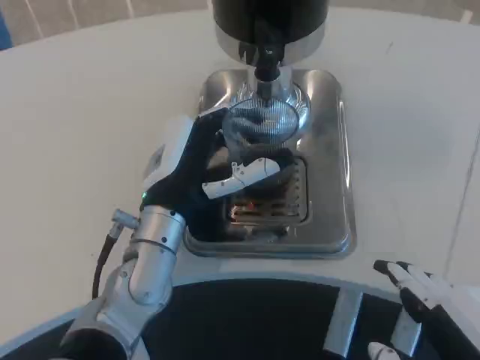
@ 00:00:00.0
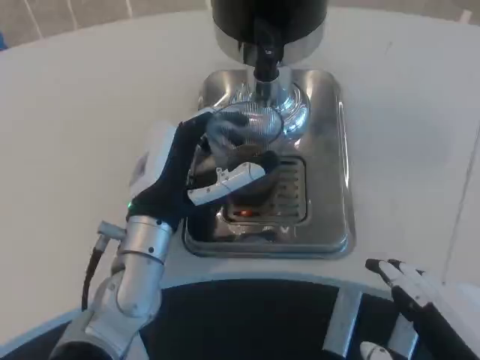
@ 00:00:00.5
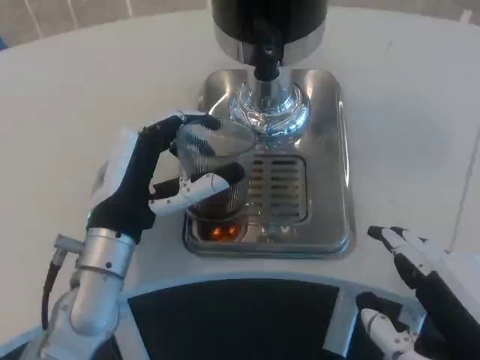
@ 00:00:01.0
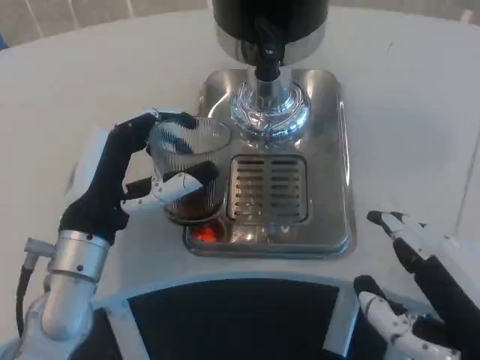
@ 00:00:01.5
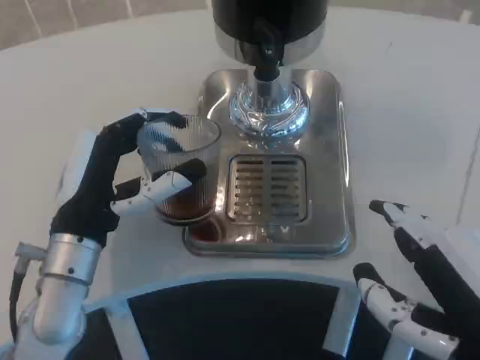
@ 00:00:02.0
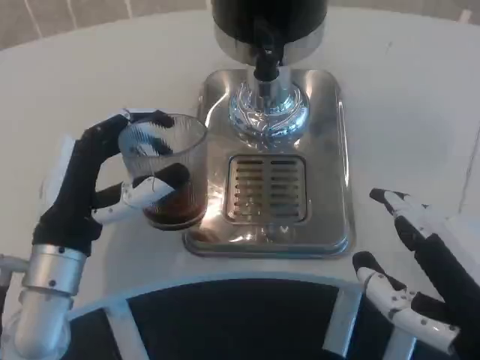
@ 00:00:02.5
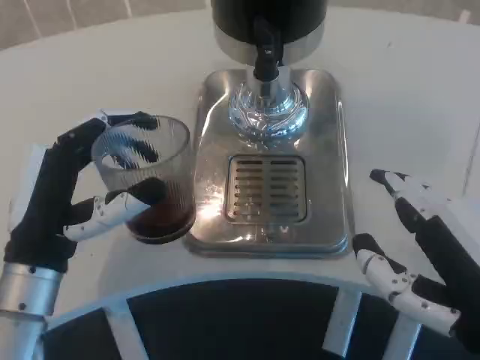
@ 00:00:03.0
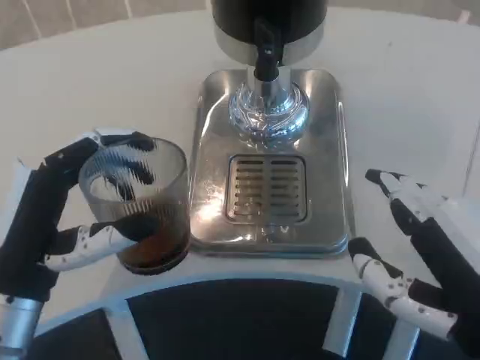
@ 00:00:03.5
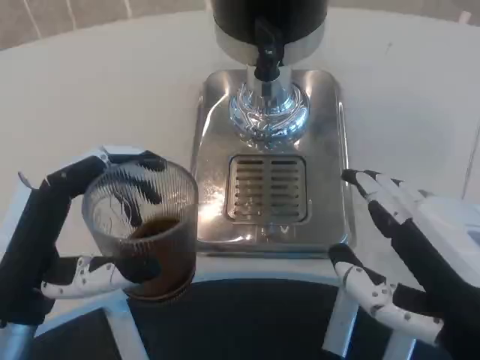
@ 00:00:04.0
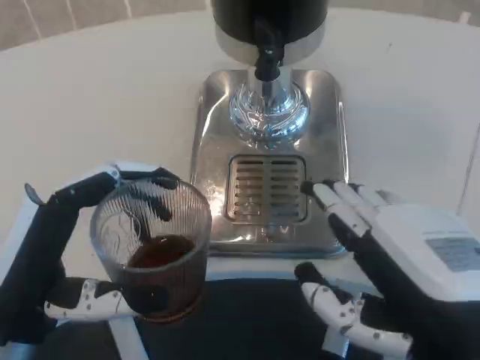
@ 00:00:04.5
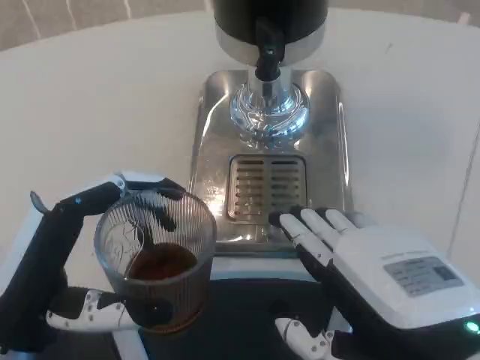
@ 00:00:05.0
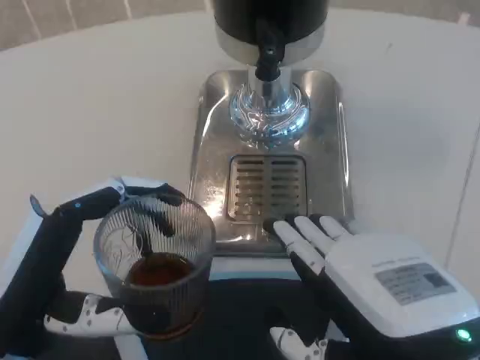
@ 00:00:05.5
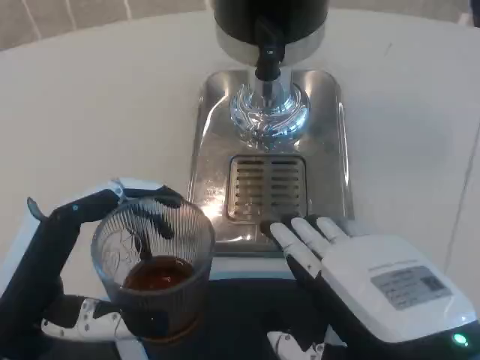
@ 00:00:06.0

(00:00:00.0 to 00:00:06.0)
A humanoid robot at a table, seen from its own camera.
Task of the whole recording: Grasp the cup under the faucet to collect the drink, then remove the cup.
00:00:00.0 - 00:00:02.0: The left hand heads to the left, covering approximately 10 cm.
00:00:02.0 - 00:00:04.0: The left hand heads backward, covering approximately 10 cm.

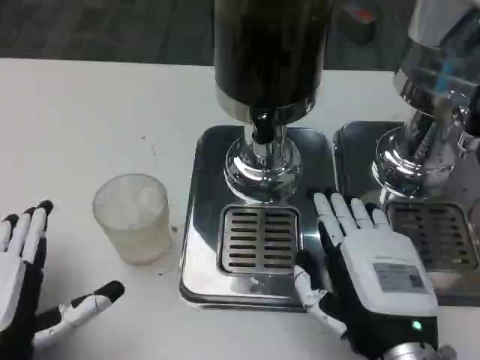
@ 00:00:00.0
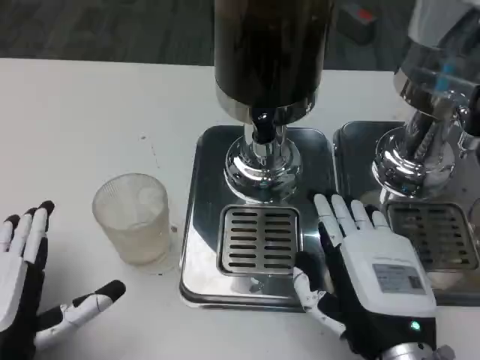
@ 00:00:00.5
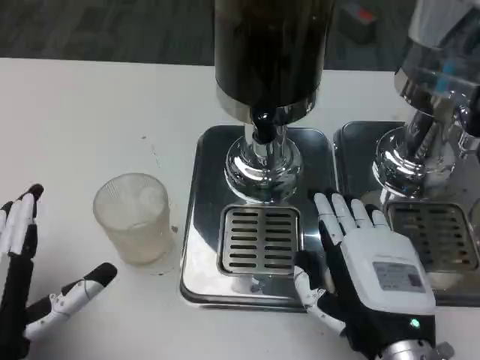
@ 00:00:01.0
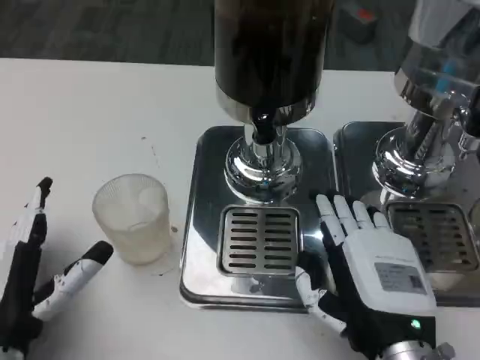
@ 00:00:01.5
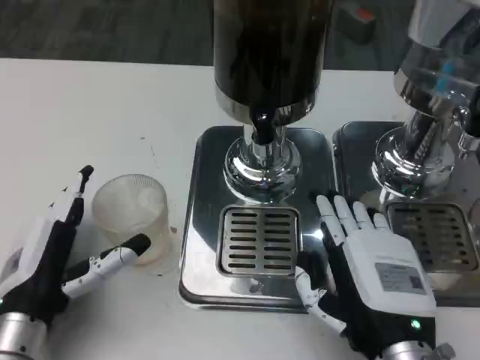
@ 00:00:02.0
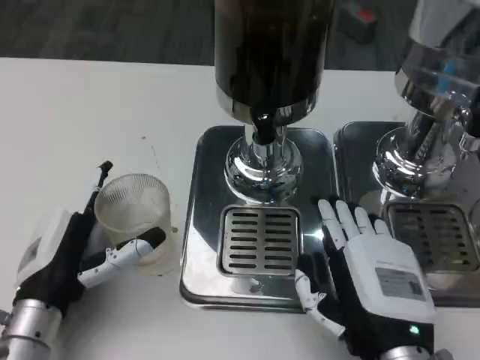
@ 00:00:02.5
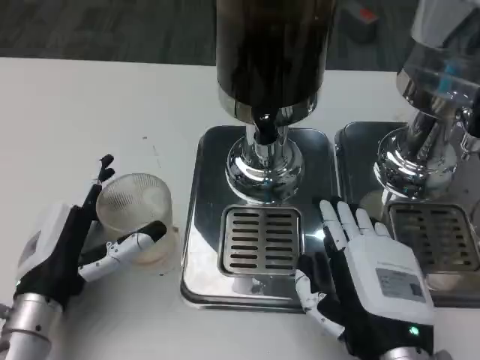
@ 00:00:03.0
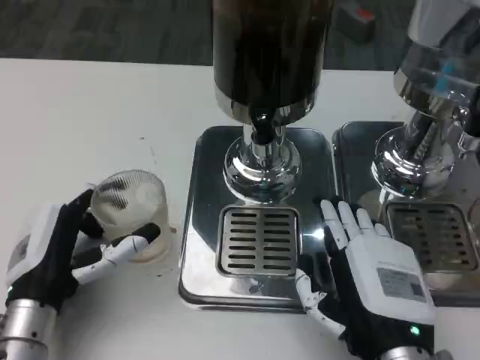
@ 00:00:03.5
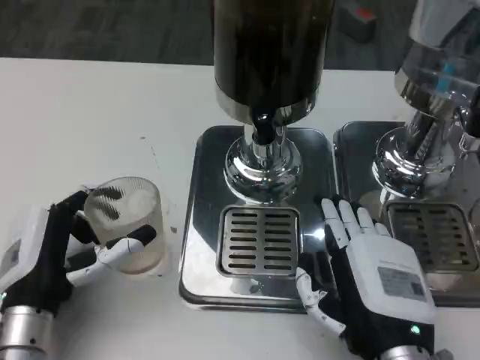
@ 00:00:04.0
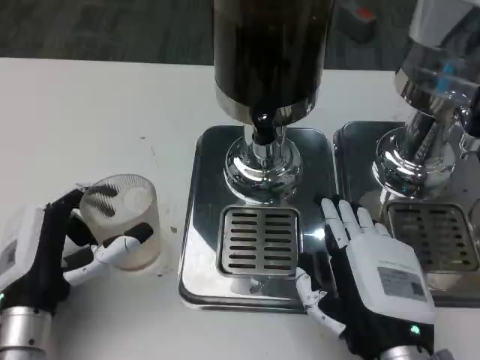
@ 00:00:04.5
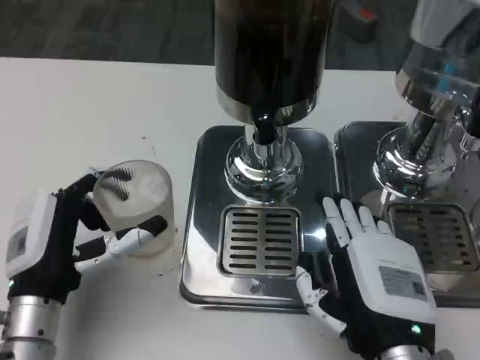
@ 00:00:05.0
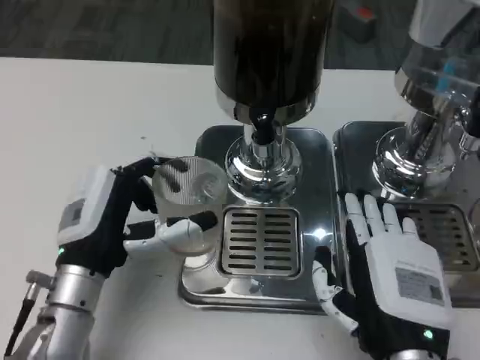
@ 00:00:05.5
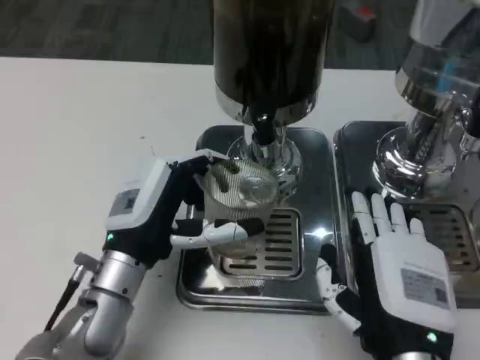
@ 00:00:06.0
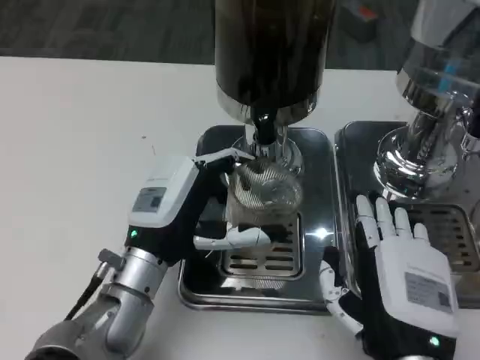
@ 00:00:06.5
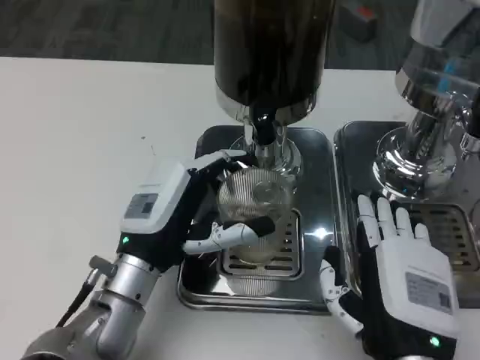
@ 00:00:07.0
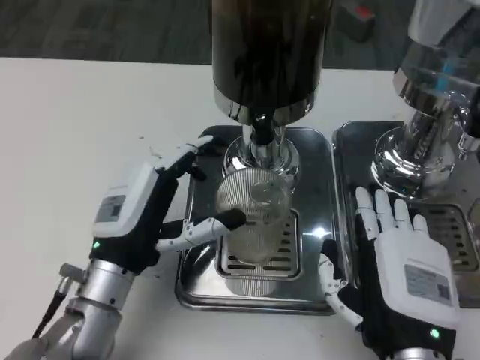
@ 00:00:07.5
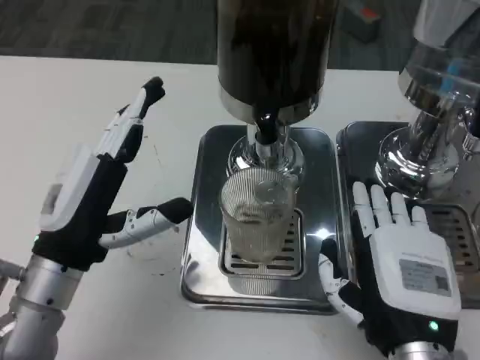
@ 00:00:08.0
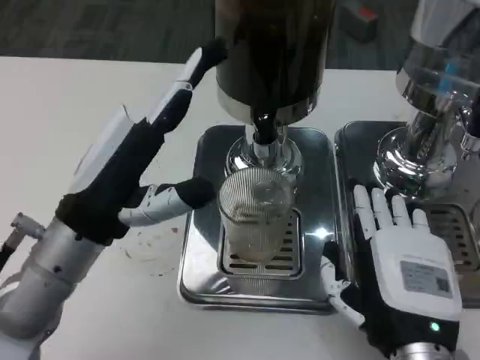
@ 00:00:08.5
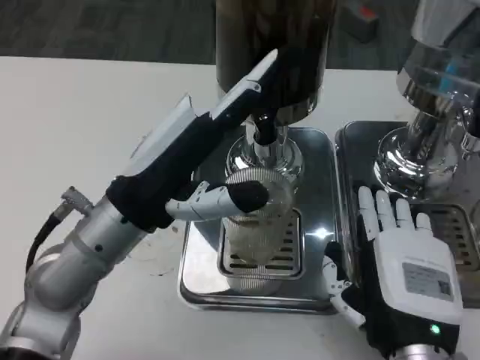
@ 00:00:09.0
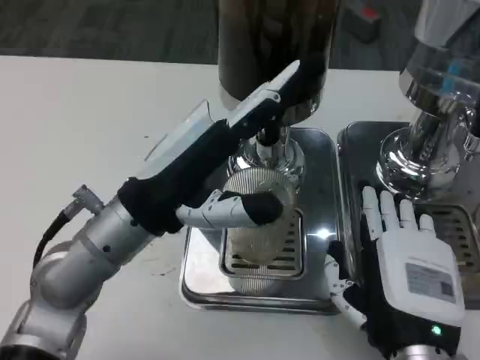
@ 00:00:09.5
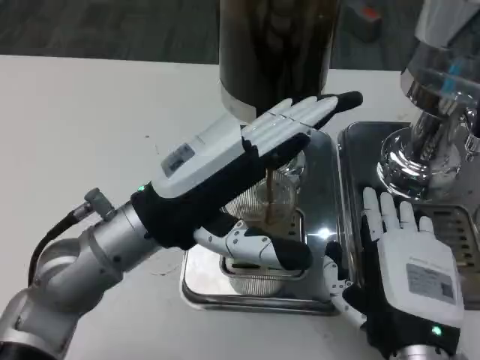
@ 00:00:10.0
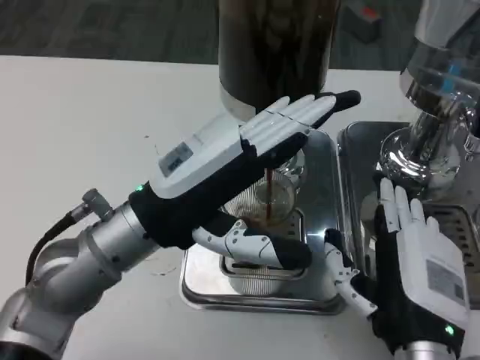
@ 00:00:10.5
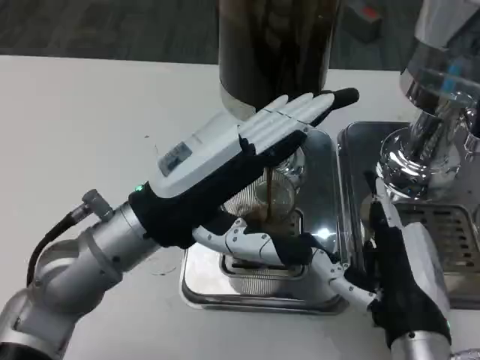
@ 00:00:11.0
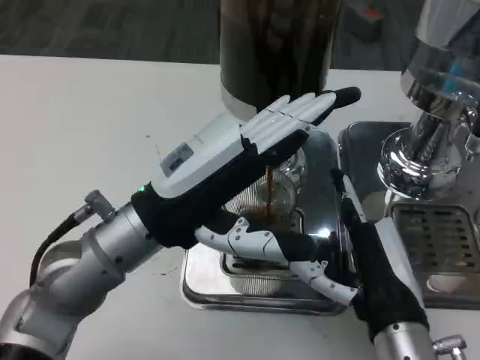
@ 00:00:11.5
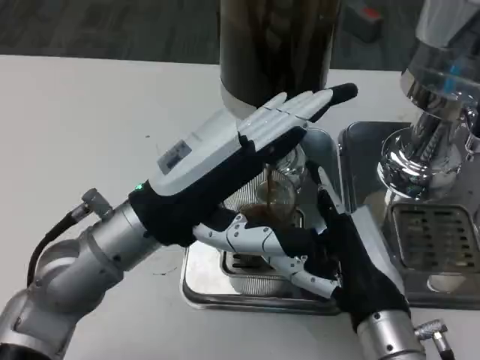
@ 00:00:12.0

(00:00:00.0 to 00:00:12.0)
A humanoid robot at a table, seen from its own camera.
Task of the whole recording: Grasp the cup under the faucet to collect the drink, then remove the cup.
00:00:00.0 - 00:00:02.0: The left hand goes roughly 5 cm forward.
00:00:02.0 - 00:00:04.0: The hands stay close to where they were, moving slightly.
00:00:04.0 - 00:00:06.0: The left hand goes some 10 cm to the right and forward.
00:00:06.0 - 00:00:08.0: The left hand goes roughly 5 cm to the left.
00:00:08.0 - 00:00:10.0: The left hand heads upward and to the right, covering approximately 10 cm.

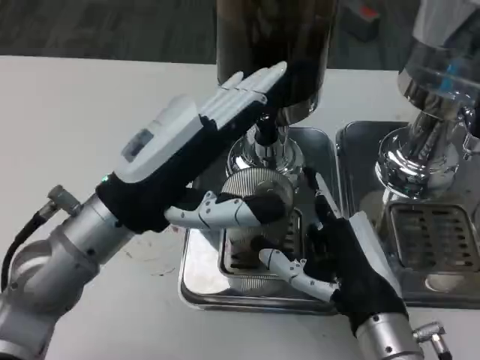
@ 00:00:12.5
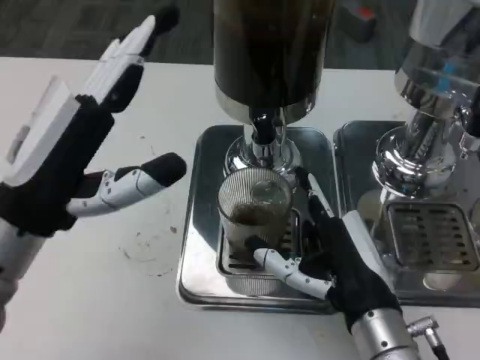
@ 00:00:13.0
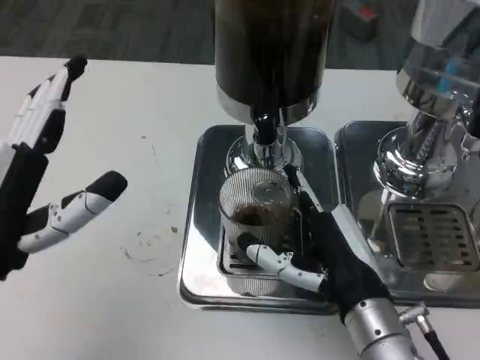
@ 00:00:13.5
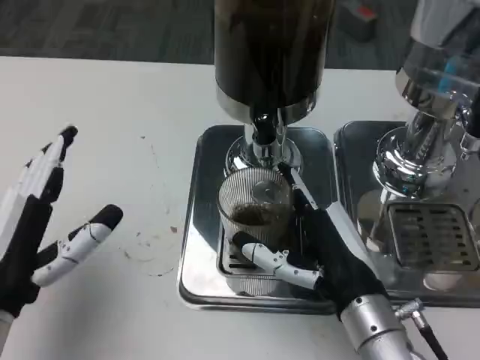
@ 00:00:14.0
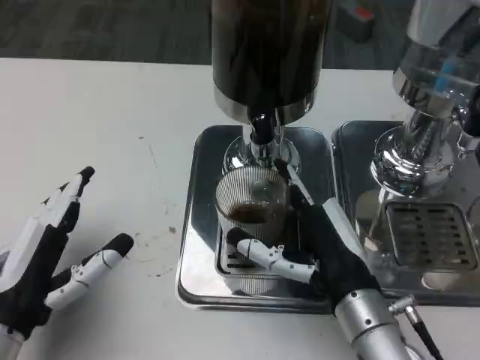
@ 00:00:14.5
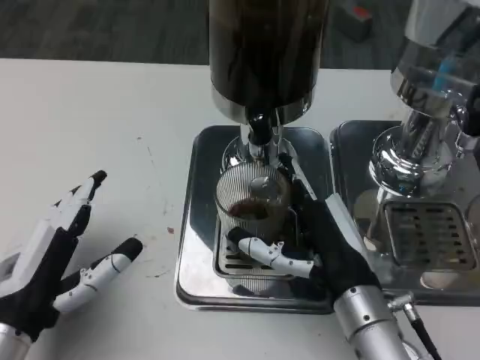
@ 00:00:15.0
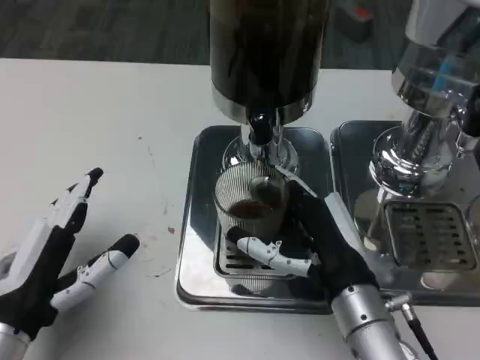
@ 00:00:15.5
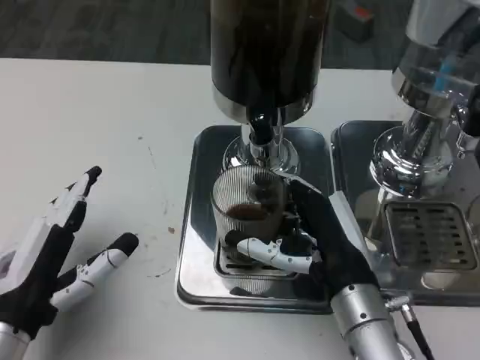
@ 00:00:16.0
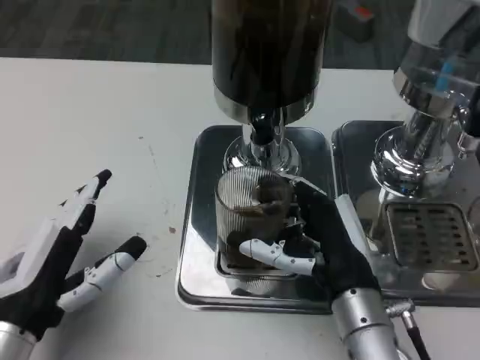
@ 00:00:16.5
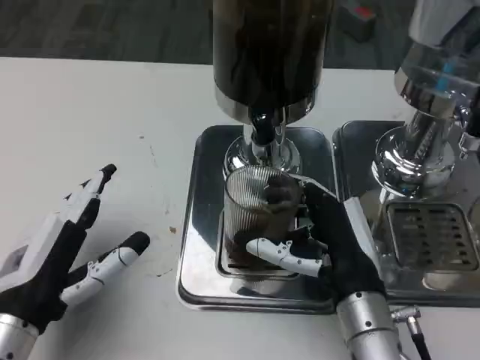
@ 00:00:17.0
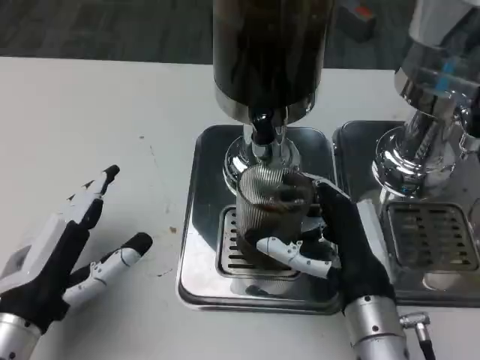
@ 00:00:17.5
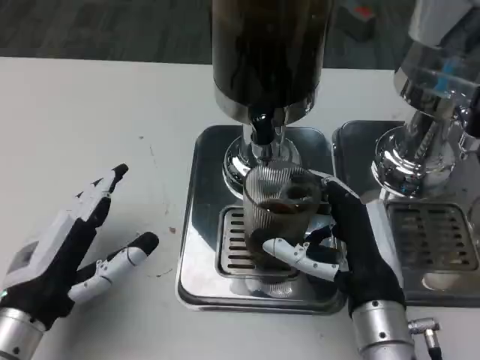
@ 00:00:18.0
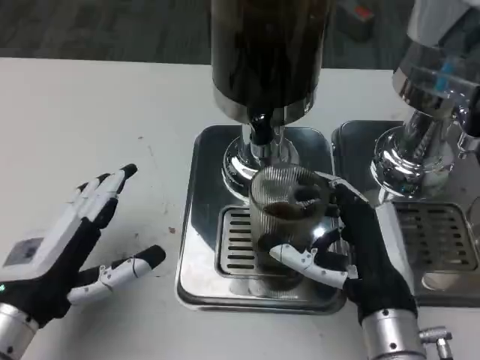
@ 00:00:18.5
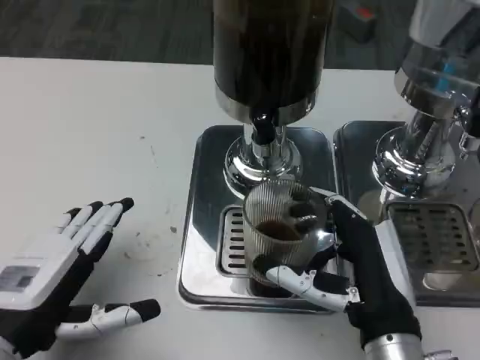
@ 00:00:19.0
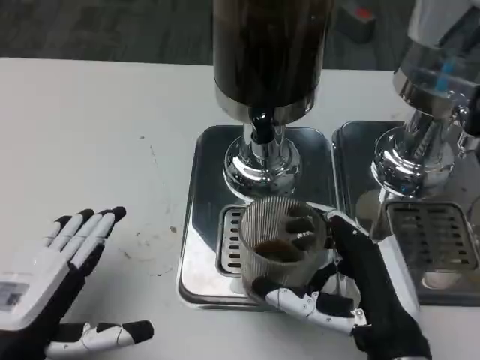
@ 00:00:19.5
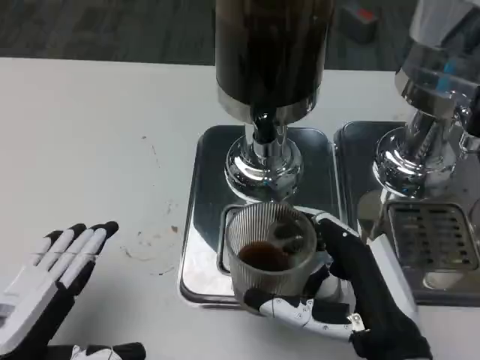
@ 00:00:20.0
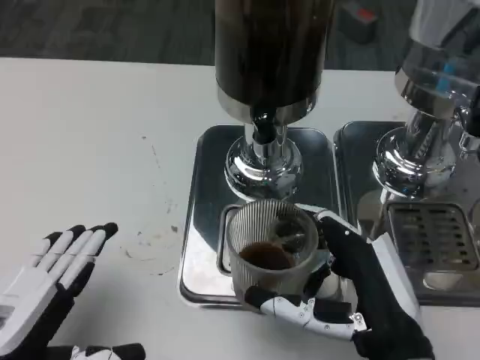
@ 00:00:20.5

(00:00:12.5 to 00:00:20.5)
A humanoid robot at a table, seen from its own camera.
Task of the whole recording: Grasp the cup under the faucet to collect the drink, then remove the cup.
00:00:12.5 - 00:00:14.5: The left hand moves downward, to the left and backward, some 15 cm.
00:00:14.5 - 00:00:18.5: The hands stay close to where they were, moving slightly.
00:00:18.5 - 00:00:20.5: Both hands travel together backward, approximately 5 cm.
